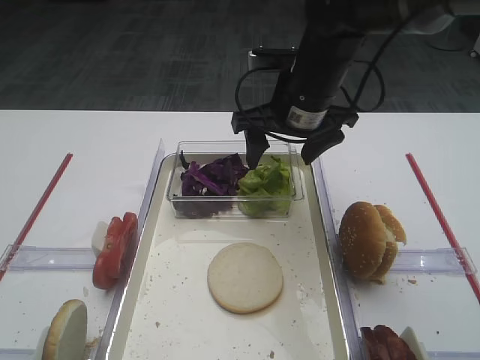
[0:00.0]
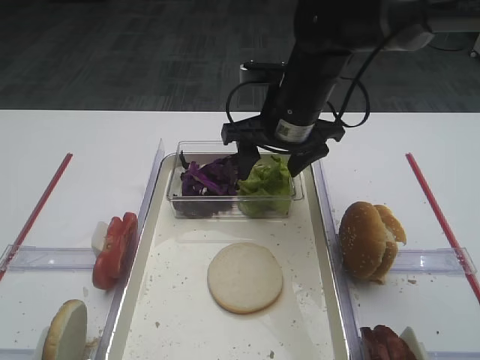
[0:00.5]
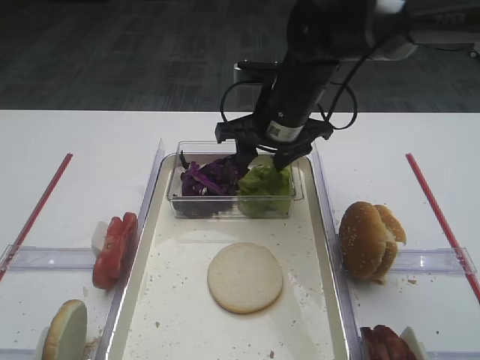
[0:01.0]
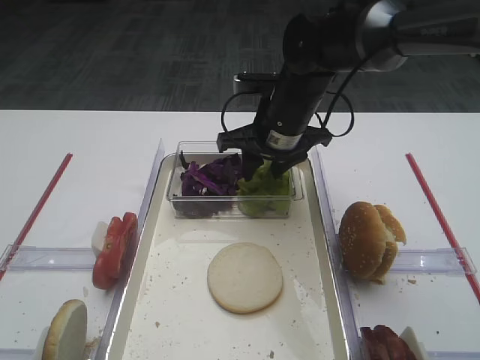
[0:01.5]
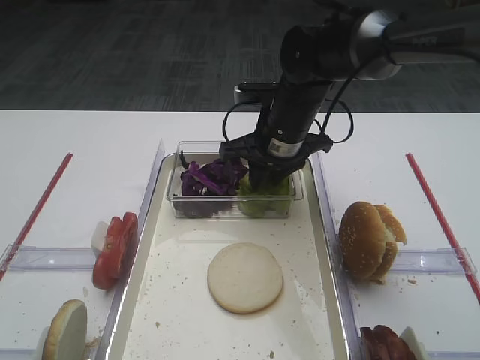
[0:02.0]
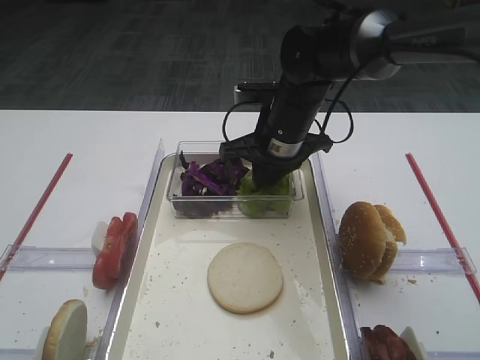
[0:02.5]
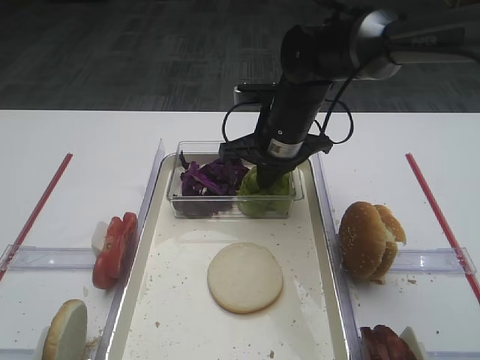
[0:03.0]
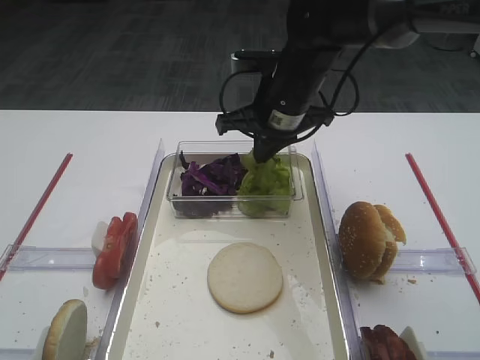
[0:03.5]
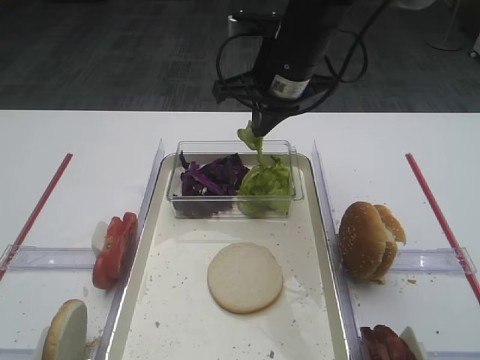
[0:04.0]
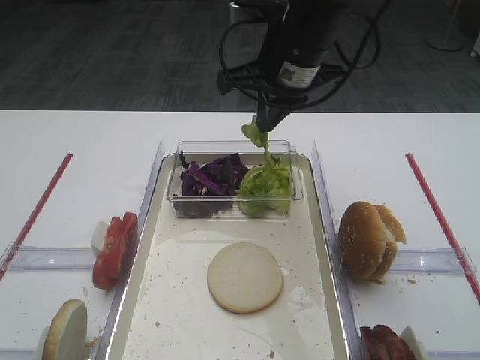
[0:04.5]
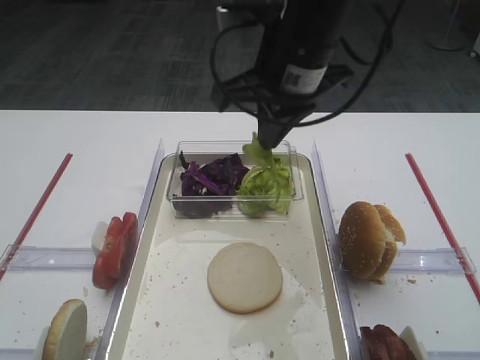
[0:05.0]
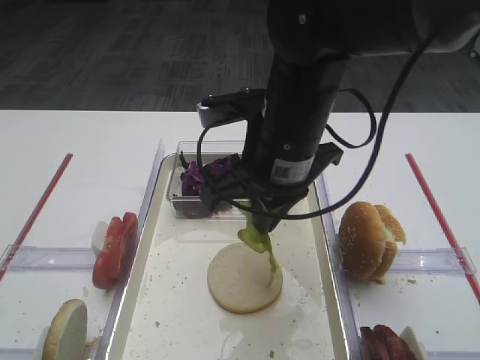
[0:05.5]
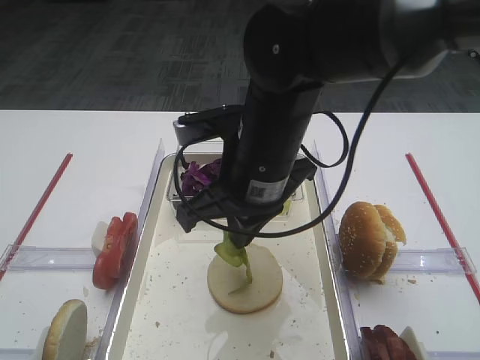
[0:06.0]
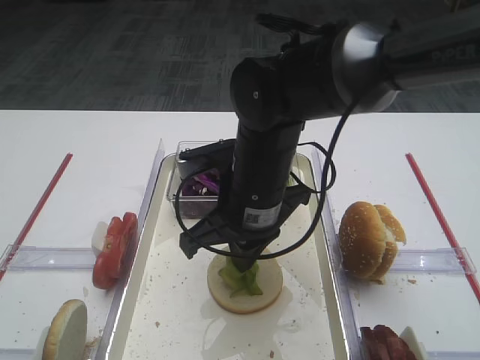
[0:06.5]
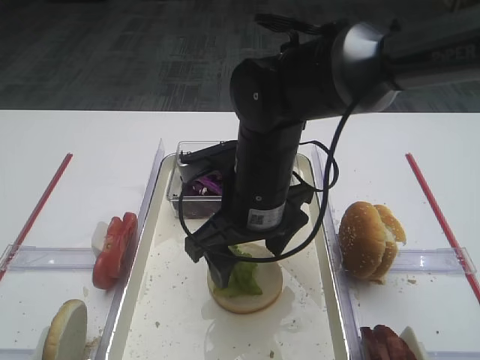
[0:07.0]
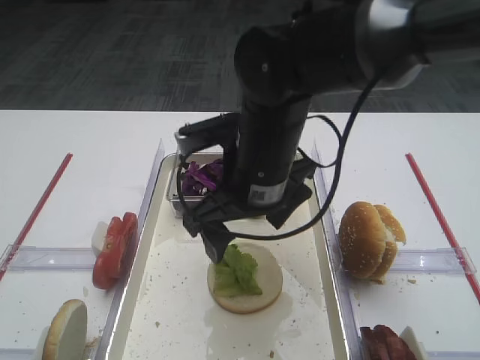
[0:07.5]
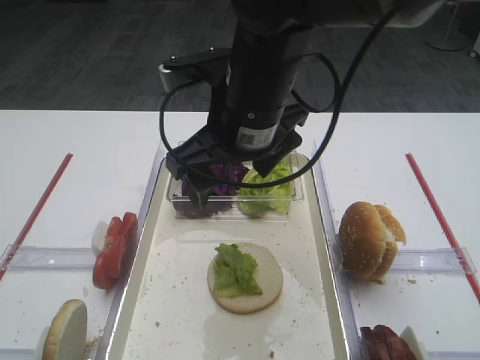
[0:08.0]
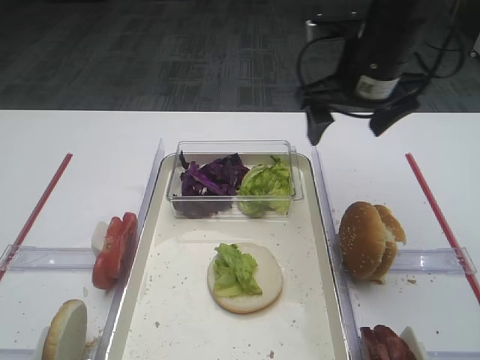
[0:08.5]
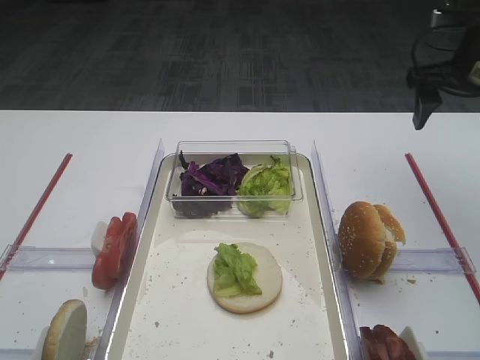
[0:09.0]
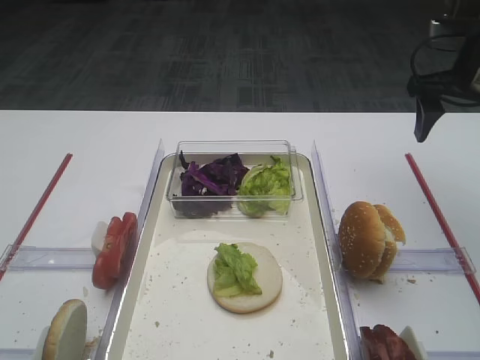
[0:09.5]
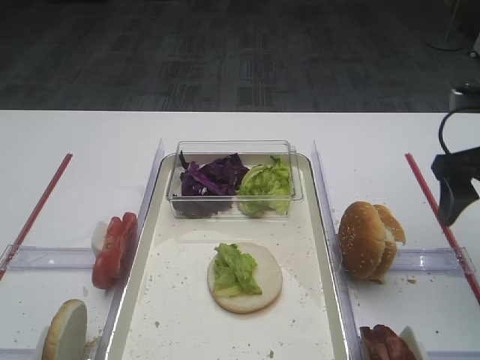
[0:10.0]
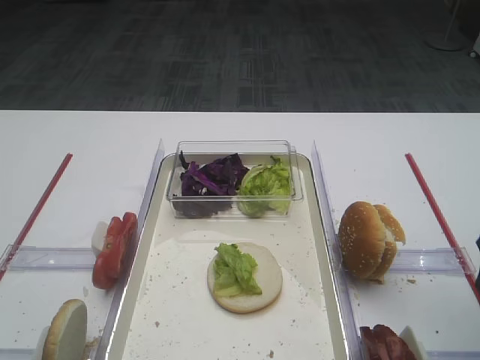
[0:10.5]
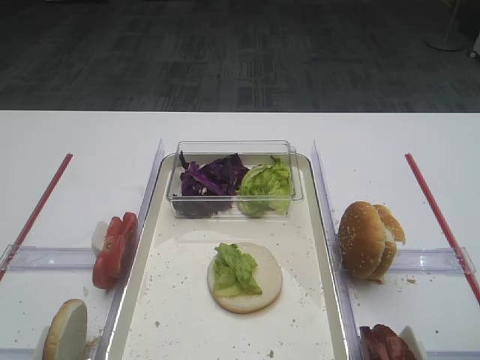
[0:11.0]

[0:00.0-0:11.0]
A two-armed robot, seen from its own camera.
Step, 0:00.0 to 0:04.5: Pick up the lettuce leaf with the right gripper.
Step, 0:05.0 to 0:08.0: Place the lettuce leaf on the bread slice with the right gripper.
0:00.0 to 0:02.0: The right gripper travels downward by some 5 cm, and closes.
0:02.0 to 0:03.5: The right gripper closes its fingers.
0:03.5 to 0:05.5: The right gripper is displaced backward by roughly 10 cm.
0:05.5 to 0:07.5: The right gripper opens its fingers.
0:07.5 to 0:09.0: The right gripper moves to the right and forward, approximately 30 cm.
0:09.0 to 0:11.0: The right gripper travels backward by some 30 cm.

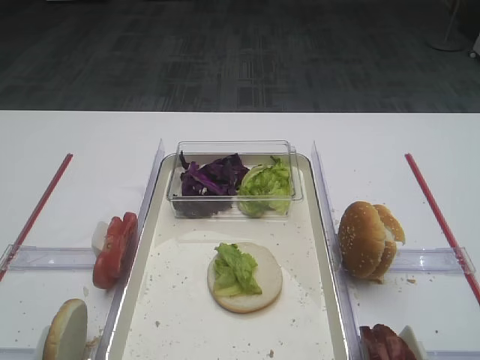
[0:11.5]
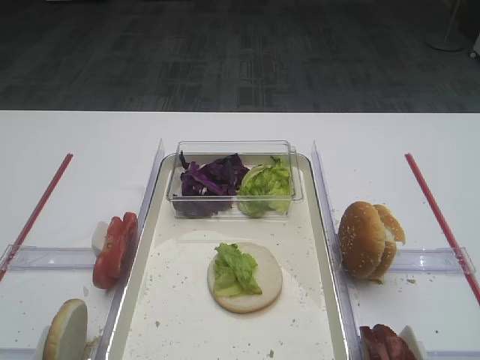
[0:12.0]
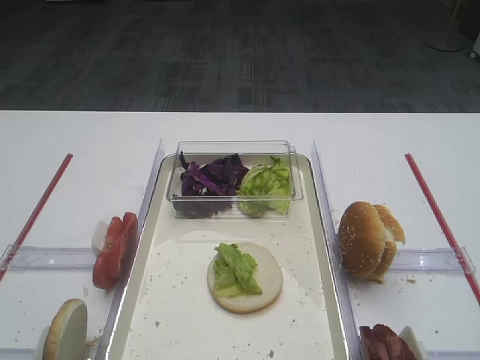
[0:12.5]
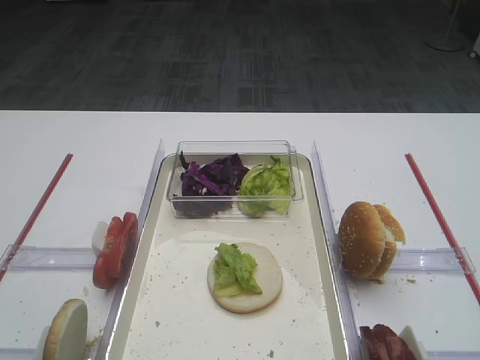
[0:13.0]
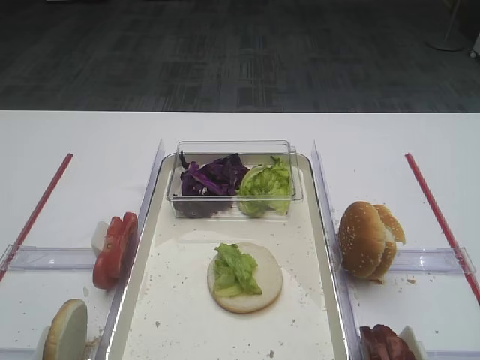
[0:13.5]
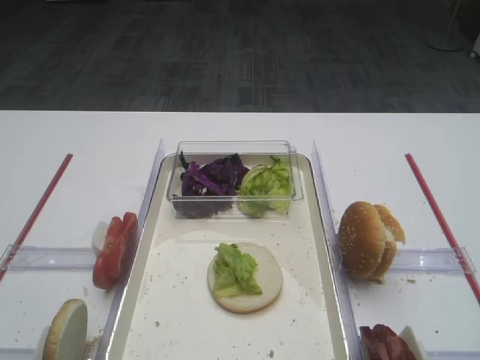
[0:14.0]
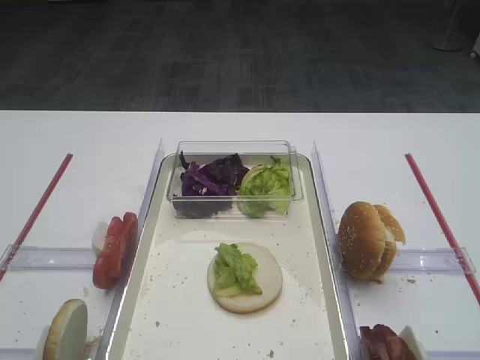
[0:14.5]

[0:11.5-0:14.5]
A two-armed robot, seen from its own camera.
0:13.0 to 0:14.5: The two grippers keep their place.

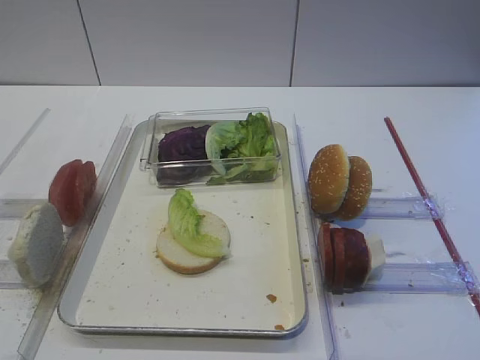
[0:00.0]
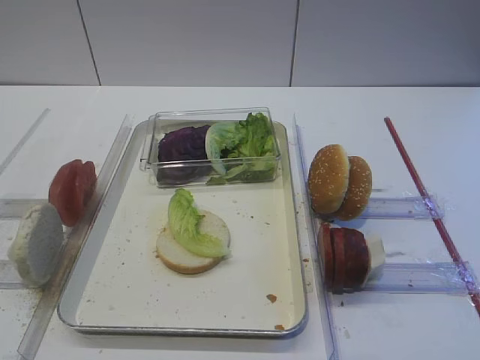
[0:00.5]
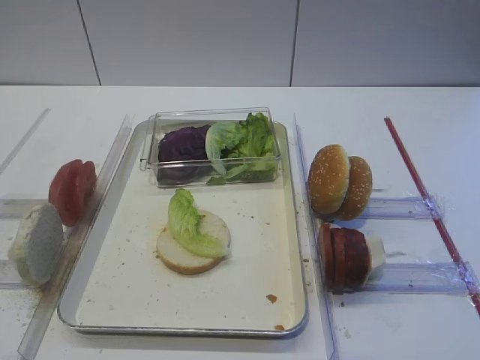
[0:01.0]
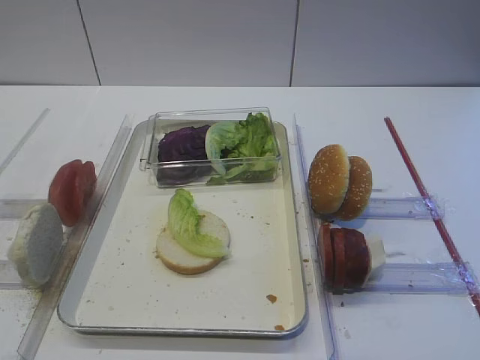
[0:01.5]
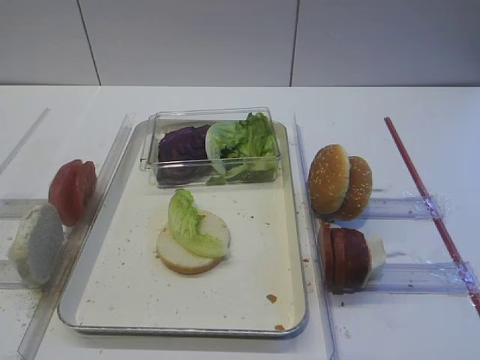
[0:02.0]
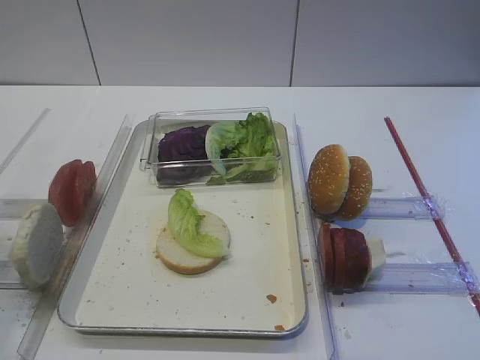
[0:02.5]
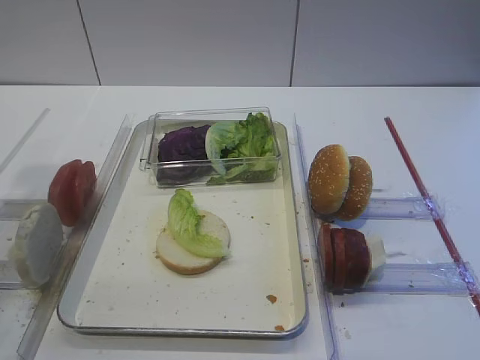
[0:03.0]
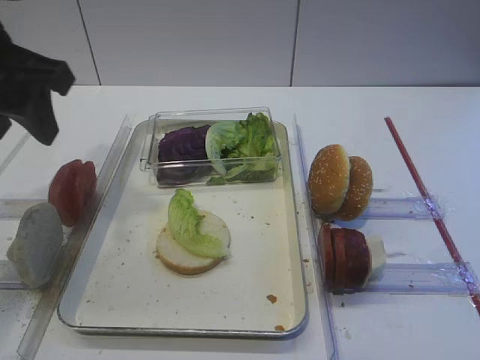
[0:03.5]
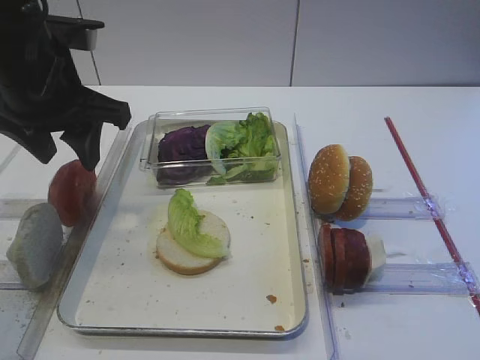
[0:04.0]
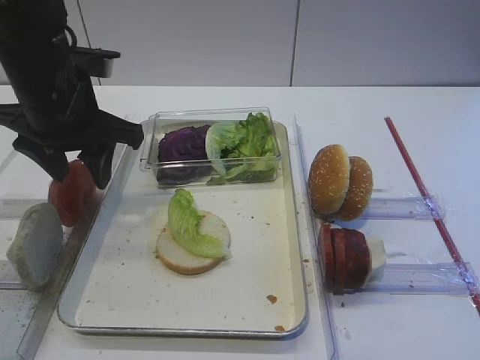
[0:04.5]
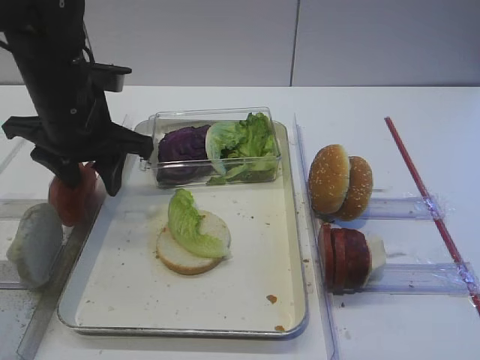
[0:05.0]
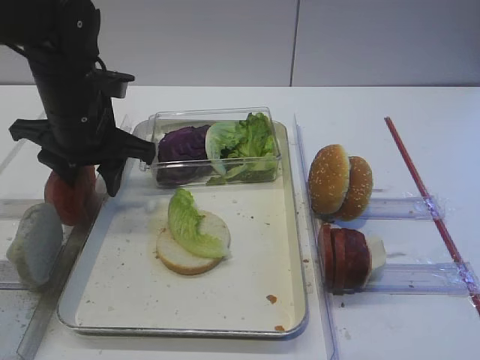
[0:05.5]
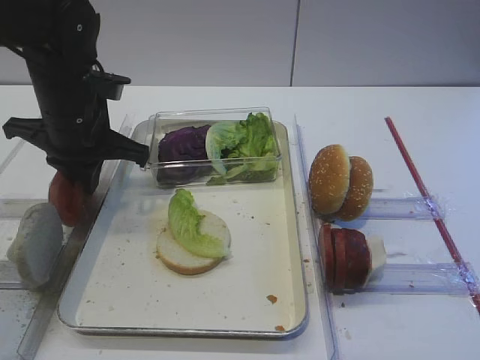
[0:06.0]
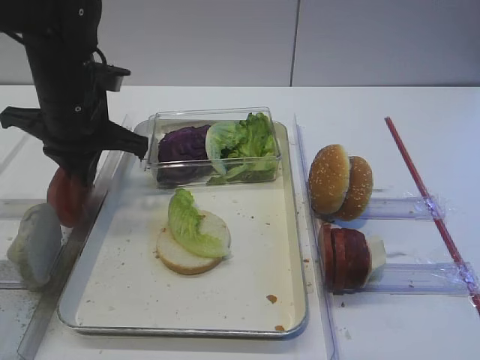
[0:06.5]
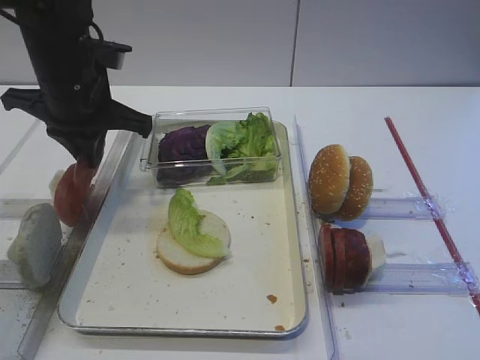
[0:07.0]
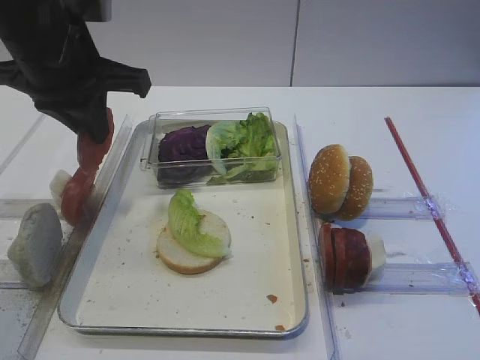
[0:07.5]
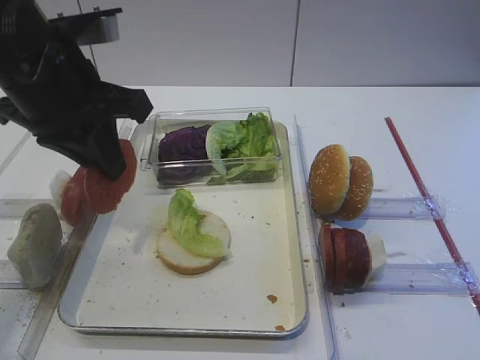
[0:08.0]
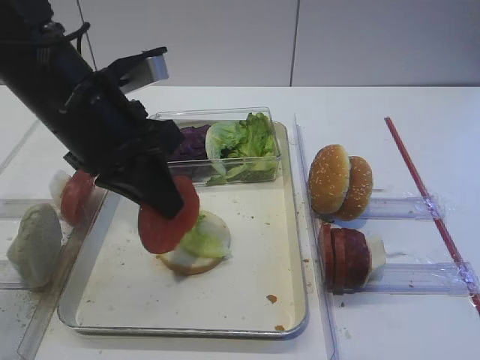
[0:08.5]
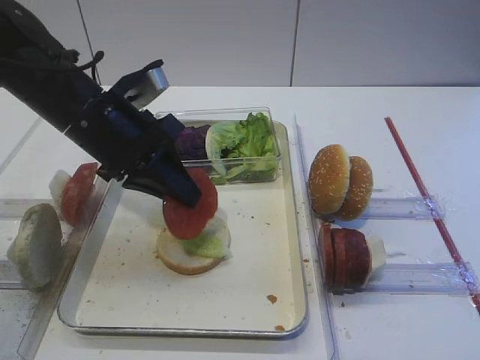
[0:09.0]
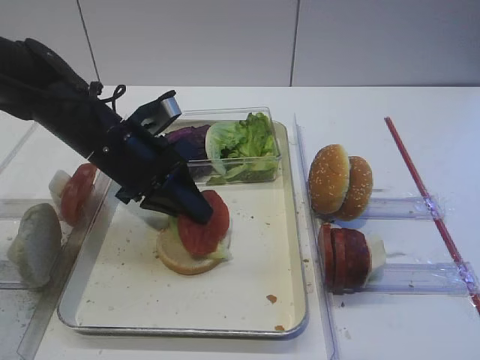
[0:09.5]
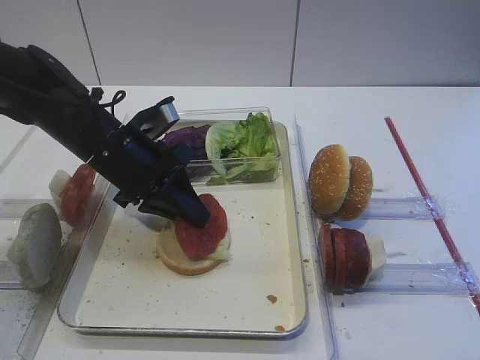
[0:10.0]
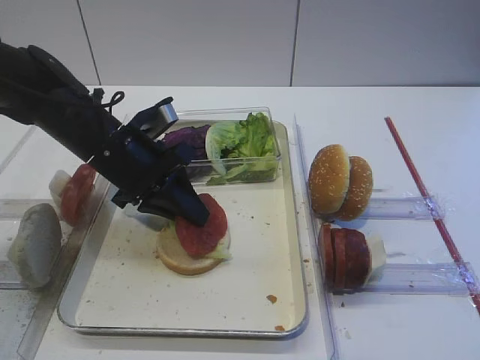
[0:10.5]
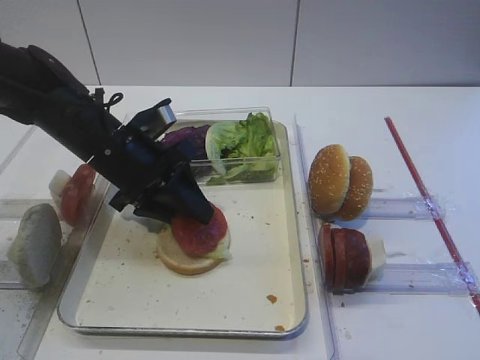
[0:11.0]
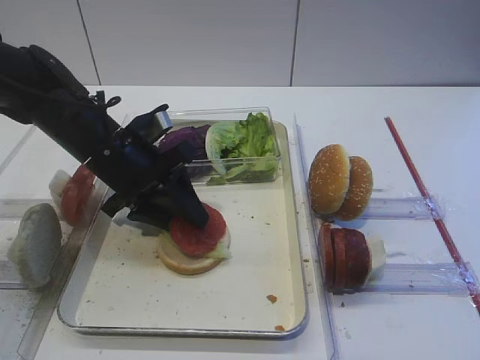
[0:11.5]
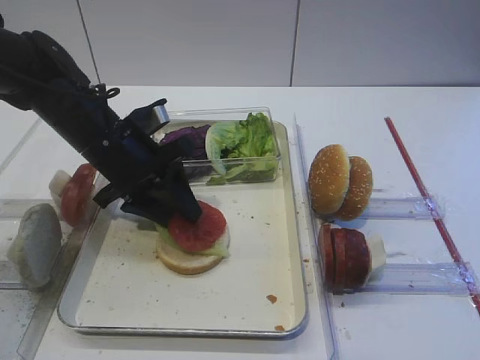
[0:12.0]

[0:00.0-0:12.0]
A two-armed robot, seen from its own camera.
Step, 0:00.0 to 0:07.0: Pick up the tomato slice with the left gripper.
0:02.0 to 0:04.0: The left gripper travels forward by some 30 cm.
0:04.0 to 0:06.0: The left gripper shifts approximately 5 cm downward, and closes.
0:06.0 to 0:08.0: The left gripper shifts roughly 10 cm upward and backward.
0:08.0 to 0:10.0: The left gripper moves downward and forward, roughly 15 cm.
0:10.0 to 0:12.0: The left gripper opens its fingers.
